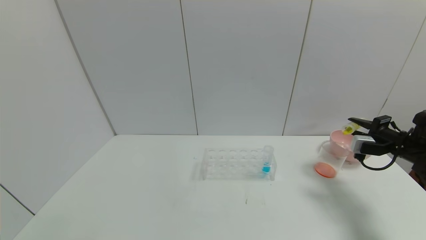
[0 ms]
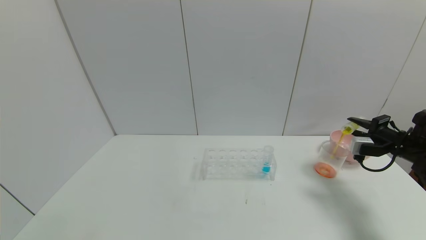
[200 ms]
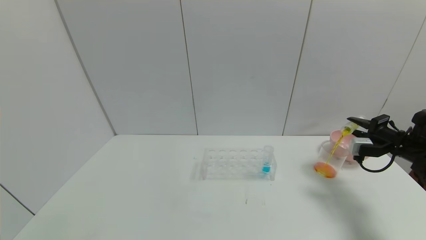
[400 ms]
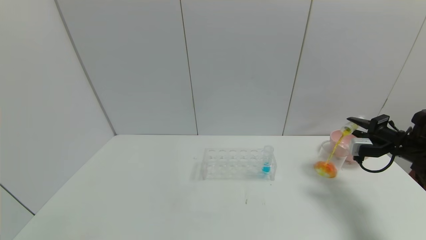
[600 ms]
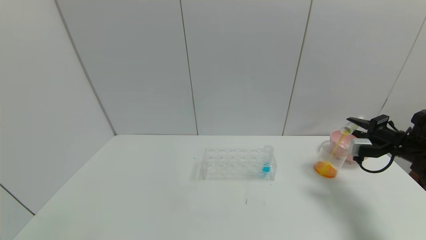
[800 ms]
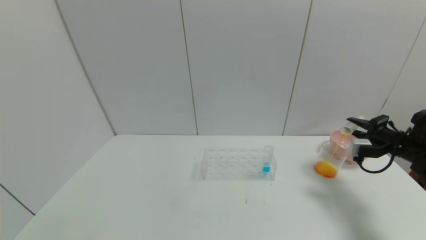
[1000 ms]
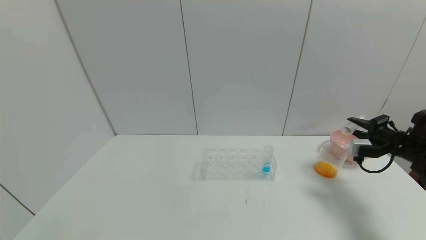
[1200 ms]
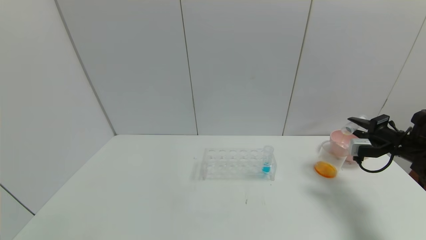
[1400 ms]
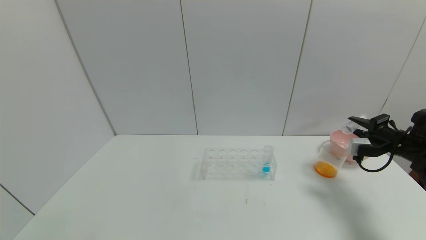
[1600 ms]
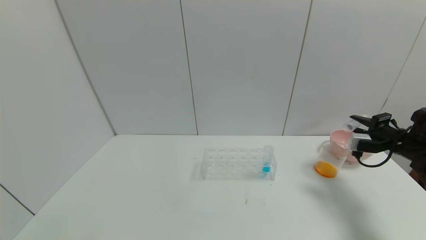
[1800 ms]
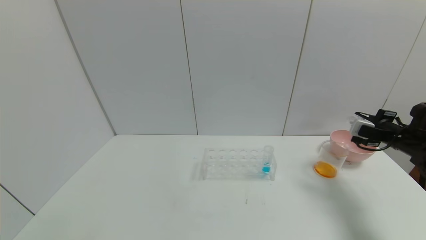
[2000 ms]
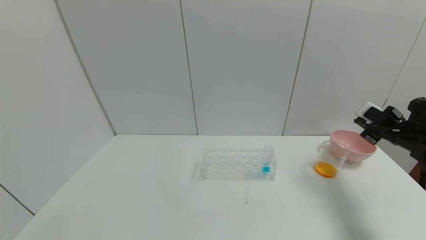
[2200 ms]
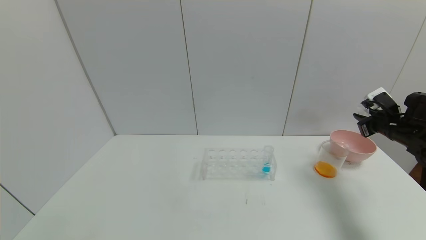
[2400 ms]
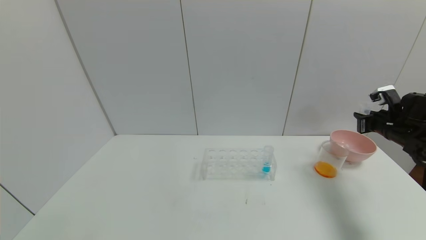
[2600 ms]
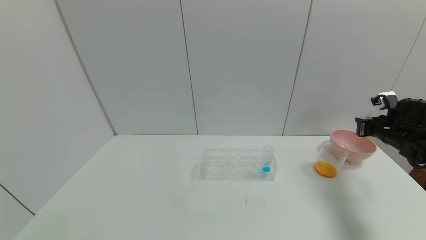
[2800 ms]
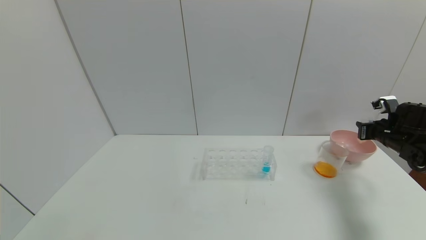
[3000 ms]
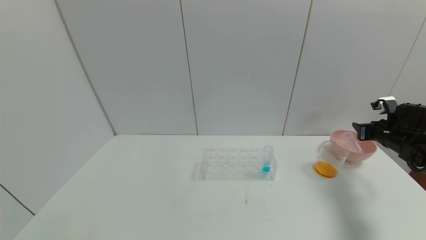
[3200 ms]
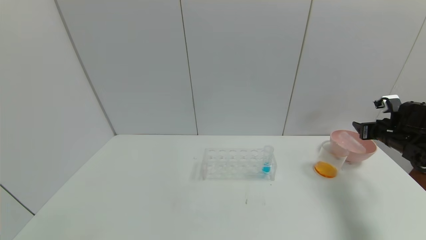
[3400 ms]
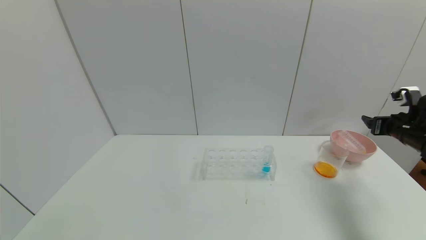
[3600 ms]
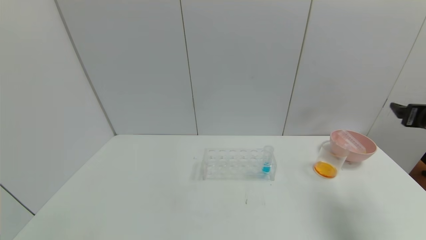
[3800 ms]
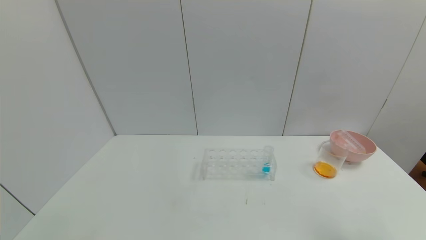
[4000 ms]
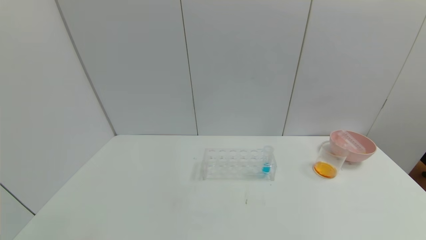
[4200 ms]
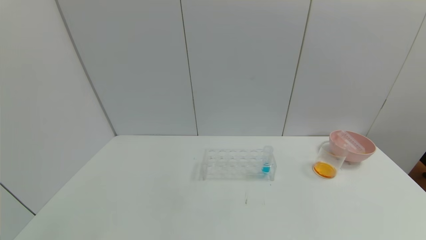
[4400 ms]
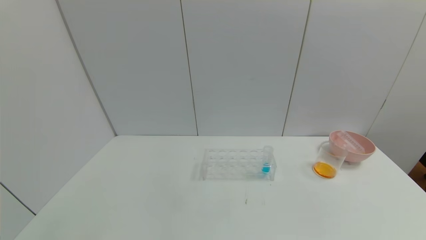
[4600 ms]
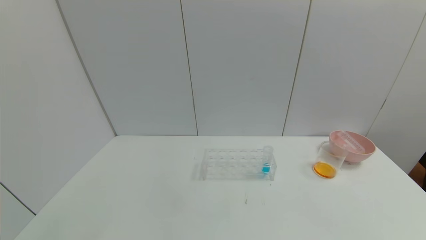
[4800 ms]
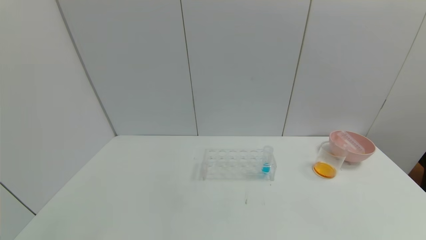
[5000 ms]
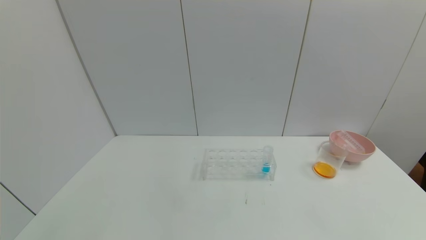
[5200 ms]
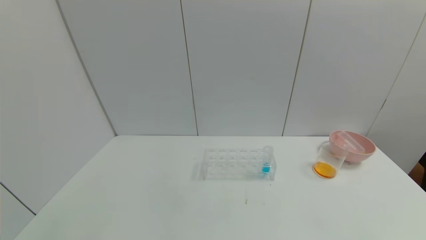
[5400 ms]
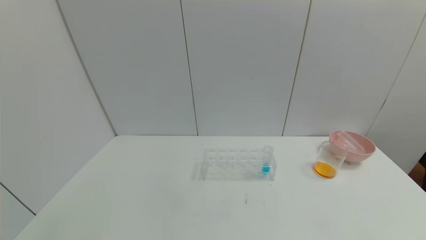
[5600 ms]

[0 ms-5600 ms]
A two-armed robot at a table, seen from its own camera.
Task of the whole recording: pick up the test tube with yellow pigment and the test tube with red pigment by grippers and pour them into the beaker.
Step, 2000 ms to 3200 ms: Place the test tube into the bowl with the right gripper.
2800 ms to 4200 ms: The right gripper is displaced backward and upward by approximately 35 cm, and opens its fingers.

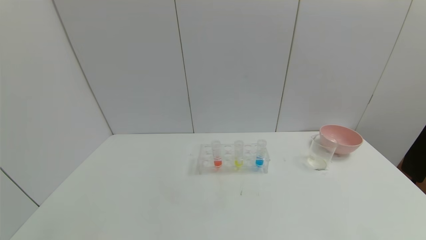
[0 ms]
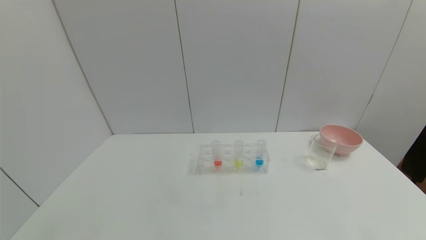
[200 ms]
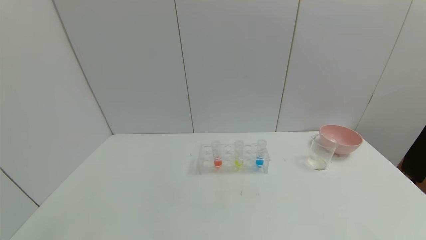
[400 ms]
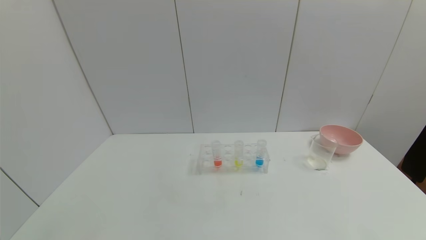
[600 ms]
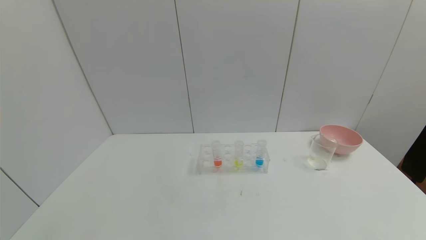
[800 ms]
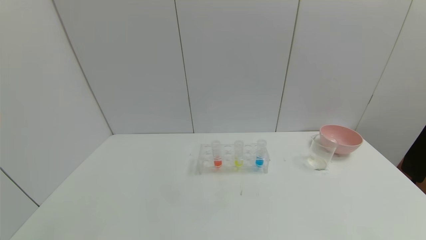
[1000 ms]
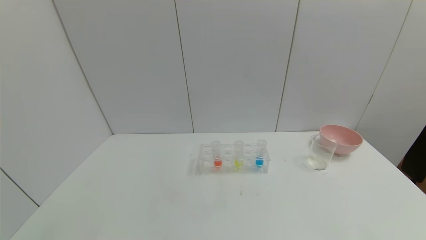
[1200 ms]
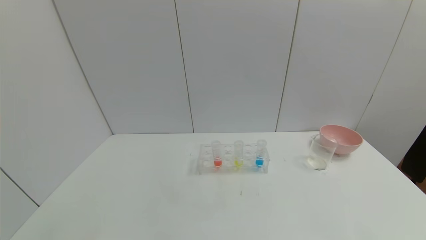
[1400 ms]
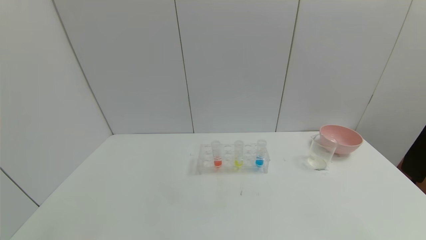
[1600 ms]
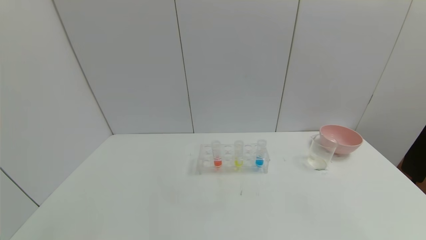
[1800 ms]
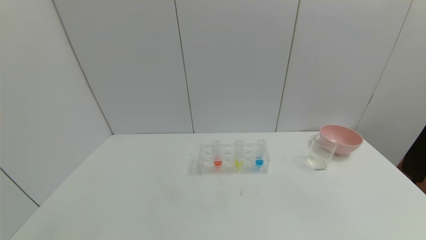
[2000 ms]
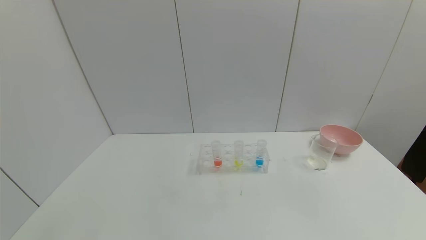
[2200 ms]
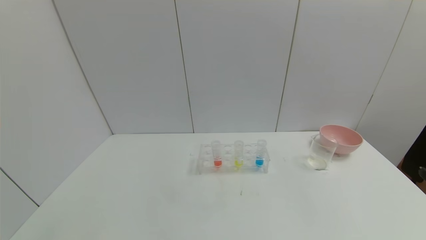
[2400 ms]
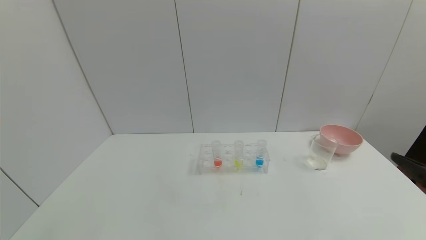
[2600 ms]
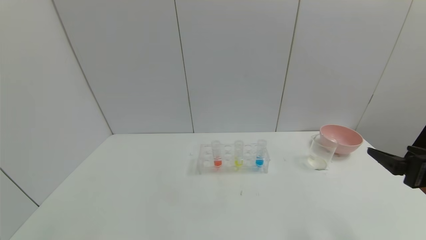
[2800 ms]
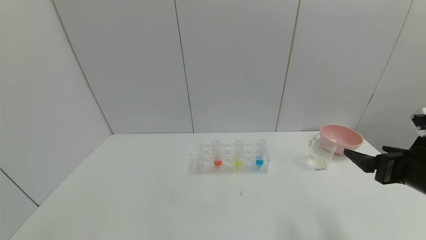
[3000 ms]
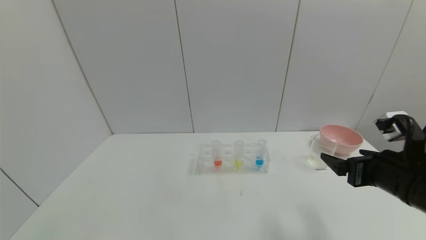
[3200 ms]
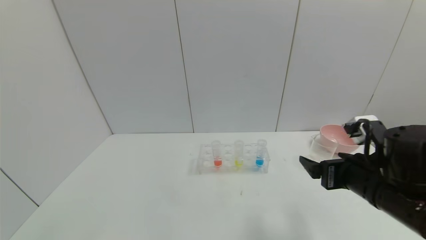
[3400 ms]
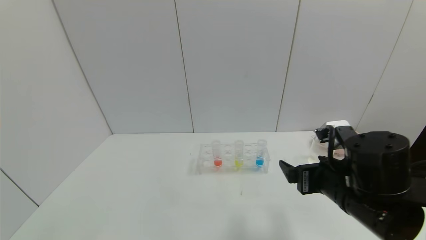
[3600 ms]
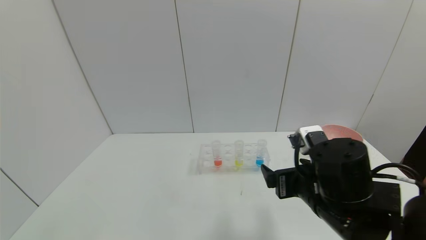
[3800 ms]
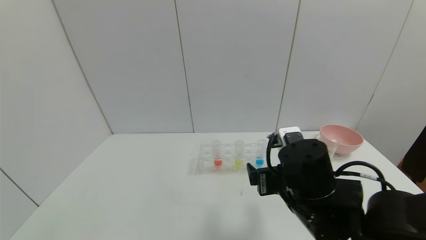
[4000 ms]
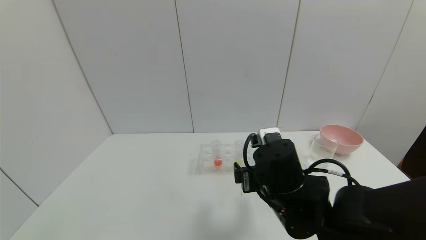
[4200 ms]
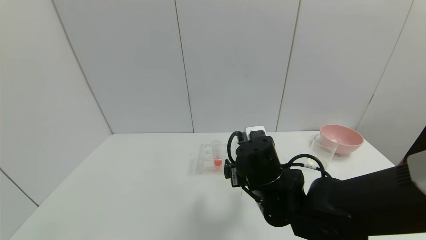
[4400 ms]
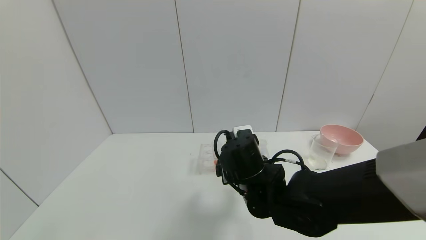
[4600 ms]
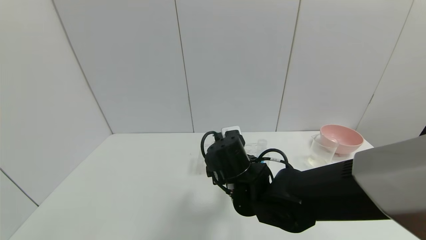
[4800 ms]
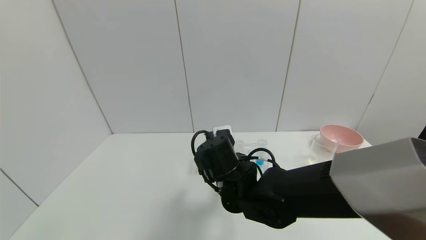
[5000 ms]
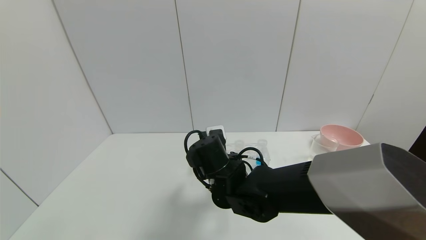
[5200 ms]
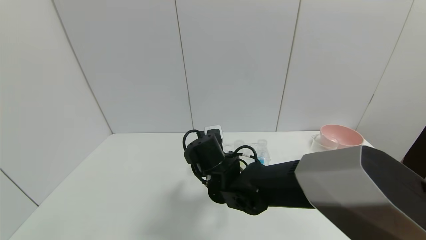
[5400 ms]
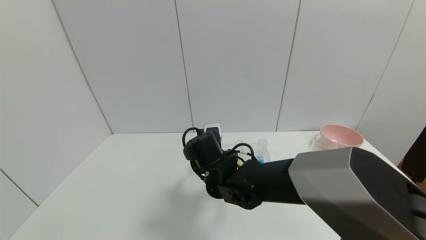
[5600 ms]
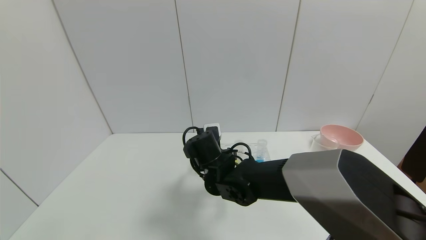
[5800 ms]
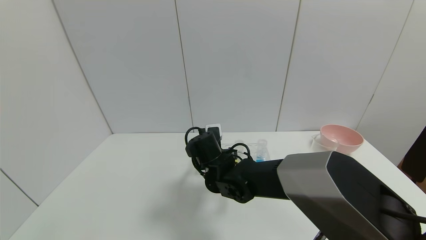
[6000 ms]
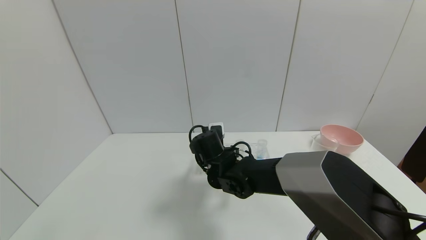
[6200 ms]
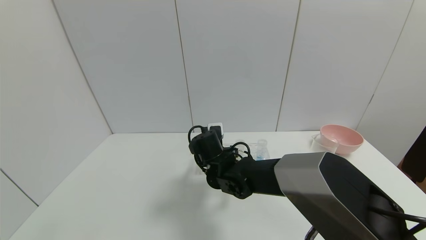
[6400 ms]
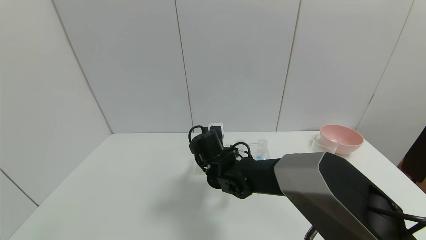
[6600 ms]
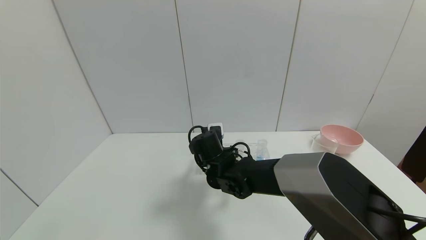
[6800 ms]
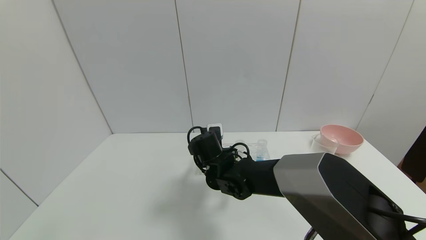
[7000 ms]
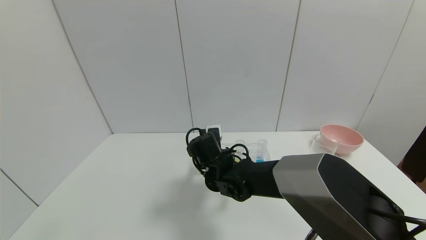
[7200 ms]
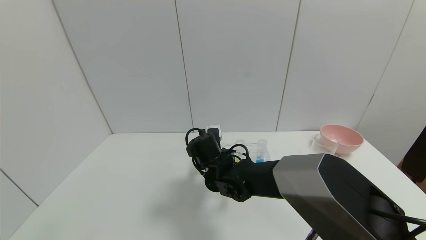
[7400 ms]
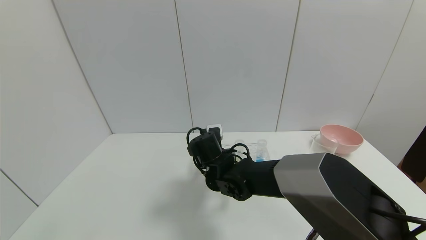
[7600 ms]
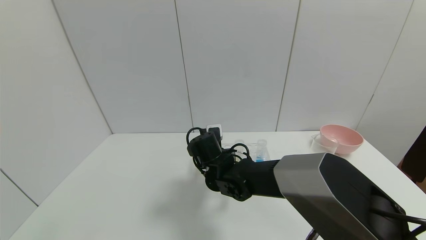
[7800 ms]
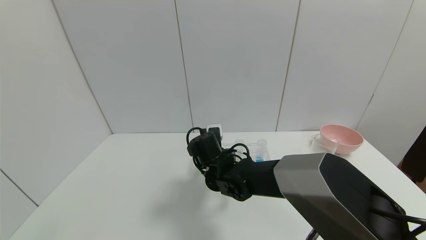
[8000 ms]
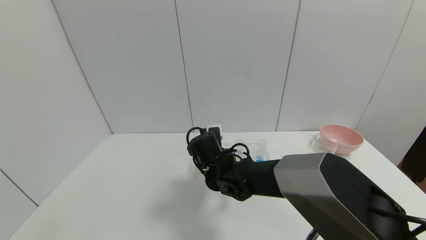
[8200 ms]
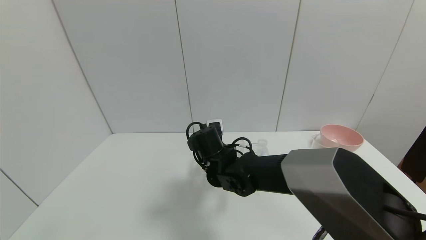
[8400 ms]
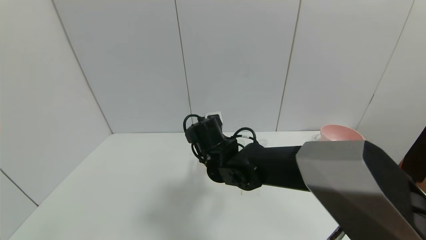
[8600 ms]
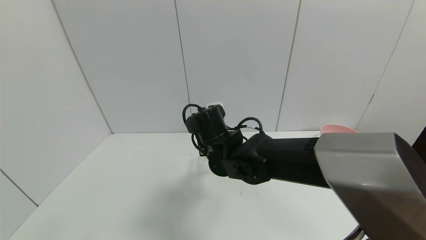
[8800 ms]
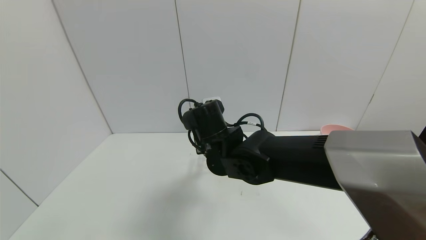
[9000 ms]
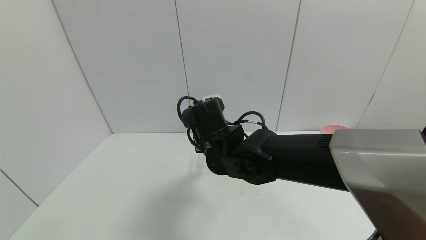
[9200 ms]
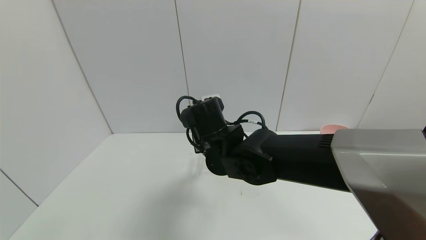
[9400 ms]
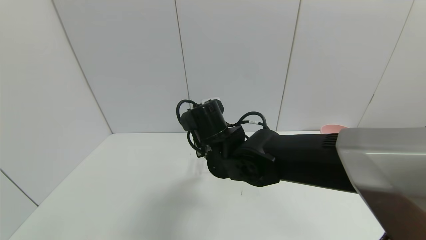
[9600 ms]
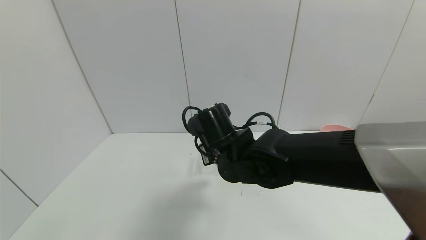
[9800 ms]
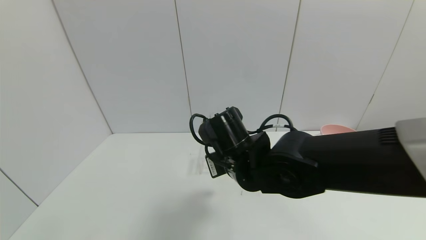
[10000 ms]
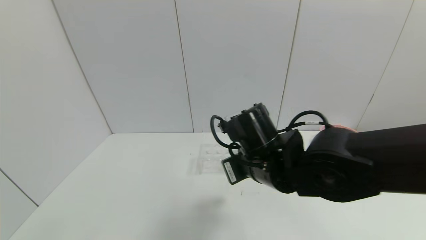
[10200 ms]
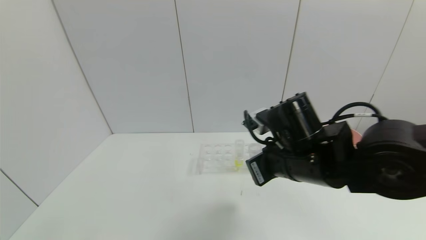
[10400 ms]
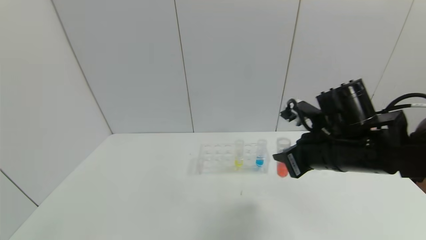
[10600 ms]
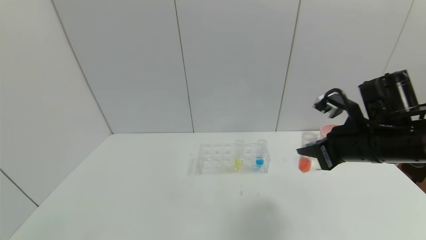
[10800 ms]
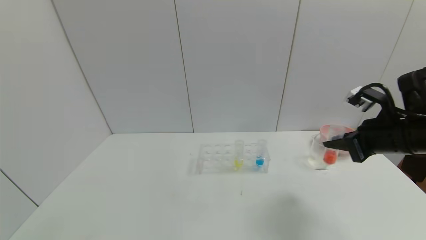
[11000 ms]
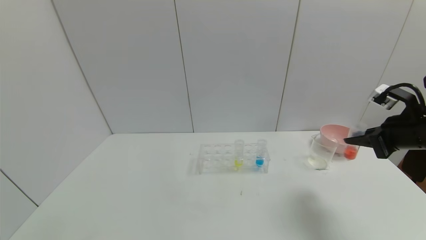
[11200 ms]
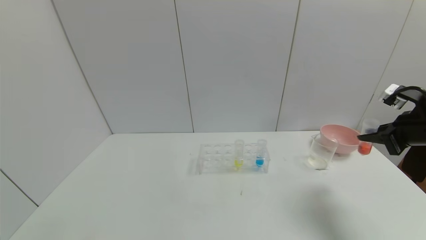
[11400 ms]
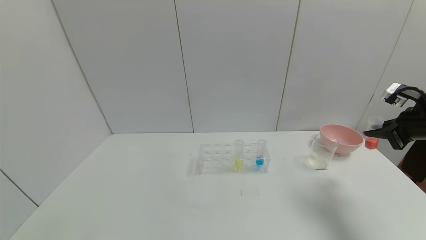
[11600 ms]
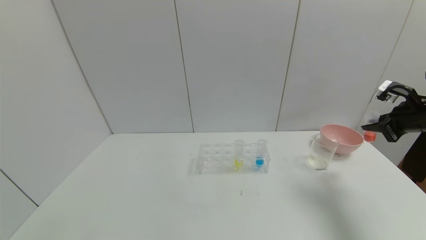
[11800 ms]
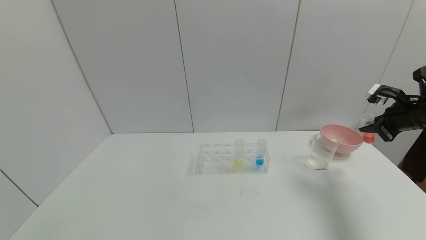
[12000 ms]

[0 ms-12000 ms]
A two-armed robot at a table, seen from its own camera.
Task of the whole recording: pick up the test tube with yellow pigment and the test tube with red pigment by grippers and pour them into the beaker.
Step, 0 ms to 10600 ms: Pick up the test tube containing the red reagent with right gripper.
1600 ms to 3000 ms: The right gripper shifts some 20 cm forward.
3000 ms to 4400 ms: The right gripper is displaced to the left by about 25 cm.
4400 ms to 6000 ms: The right gripper goes some 15 cm forward and to the left.
6000 ms to 7600 ms: The right gripper closes its fingers.
7600 ms to 9000 ms: The right gripper moves upward, approximately 10 cm.
9000 ms to 10400 ms: The right gripper moves to the right and backward, some 15 cm.
10400 ms to 12000 ms: The right gripper shifts approximately 30 cm to the right.
